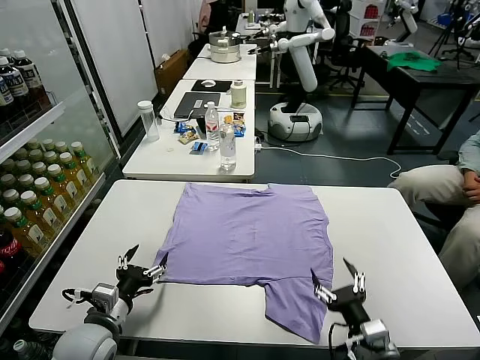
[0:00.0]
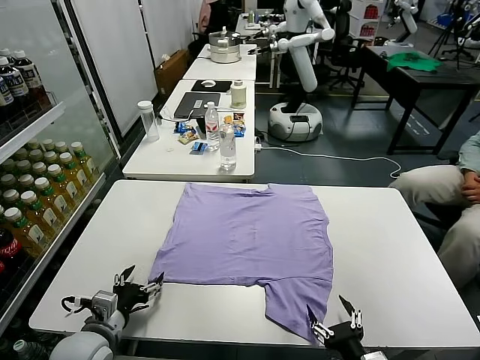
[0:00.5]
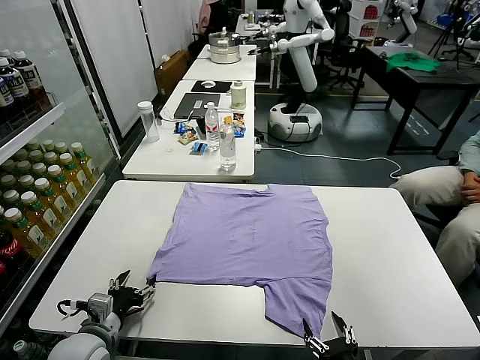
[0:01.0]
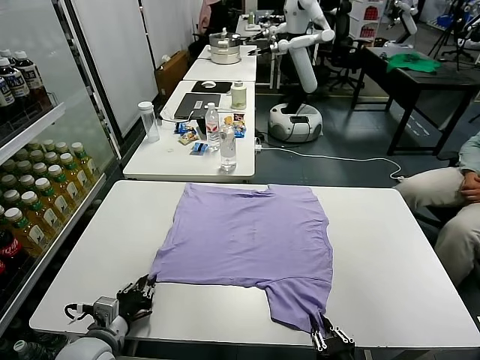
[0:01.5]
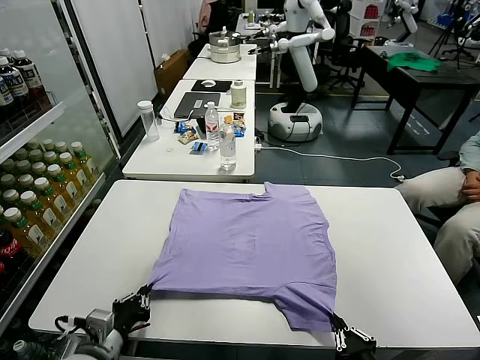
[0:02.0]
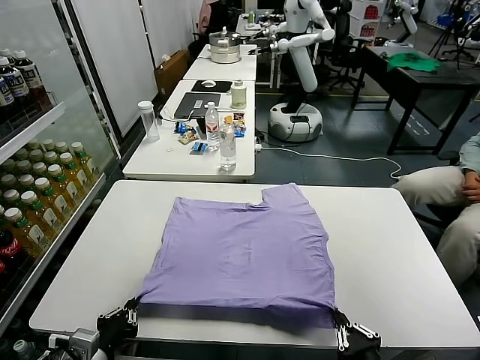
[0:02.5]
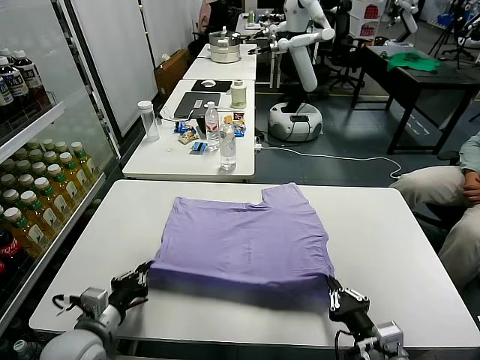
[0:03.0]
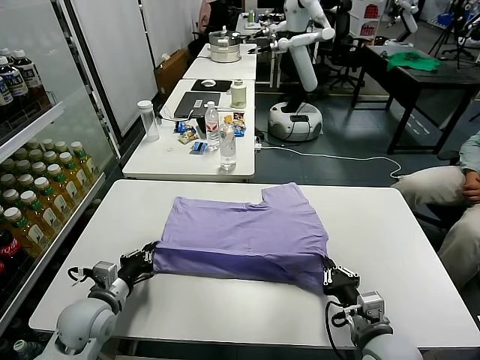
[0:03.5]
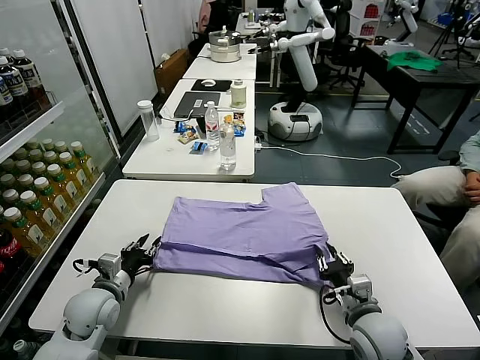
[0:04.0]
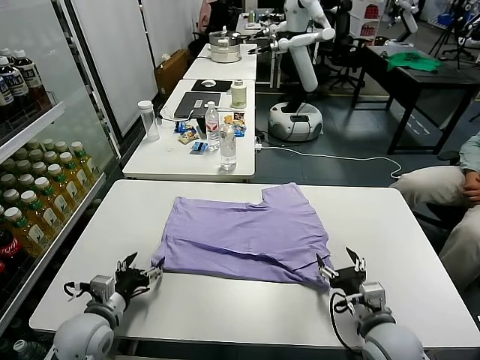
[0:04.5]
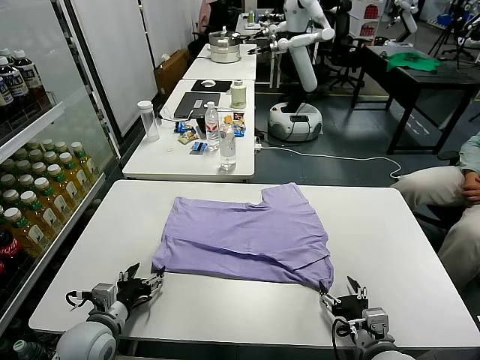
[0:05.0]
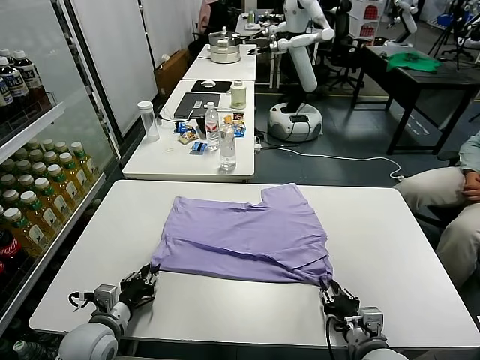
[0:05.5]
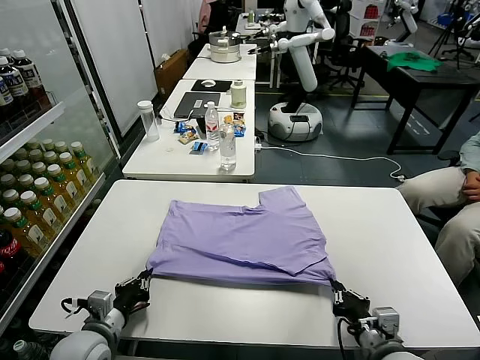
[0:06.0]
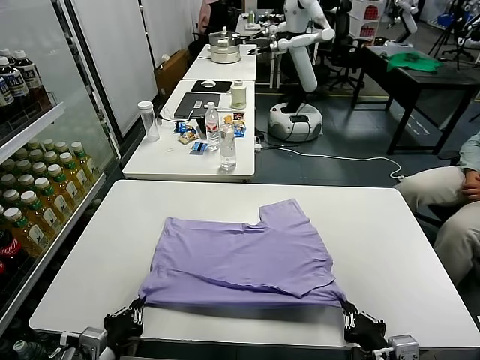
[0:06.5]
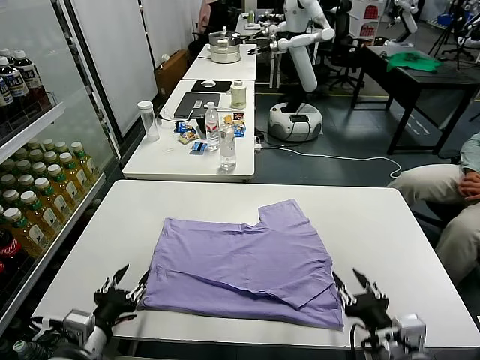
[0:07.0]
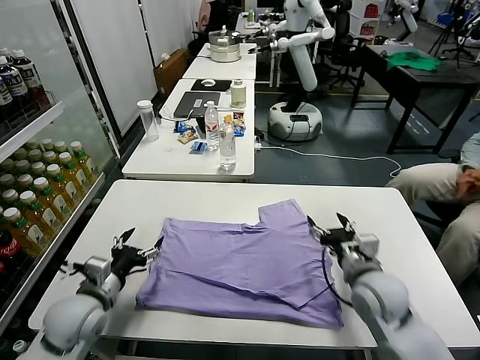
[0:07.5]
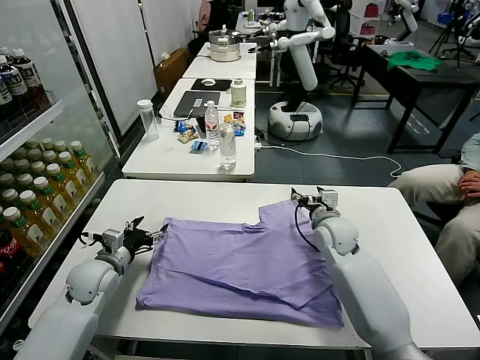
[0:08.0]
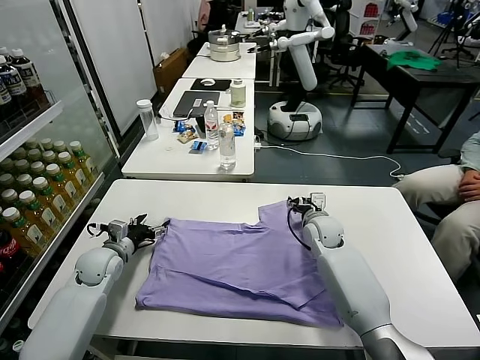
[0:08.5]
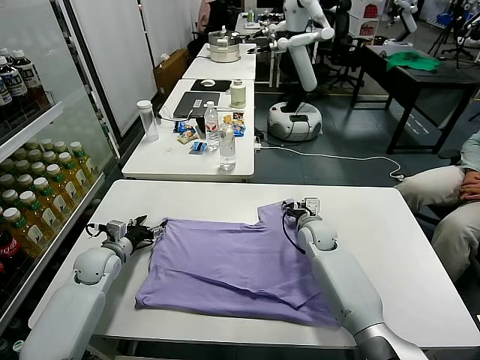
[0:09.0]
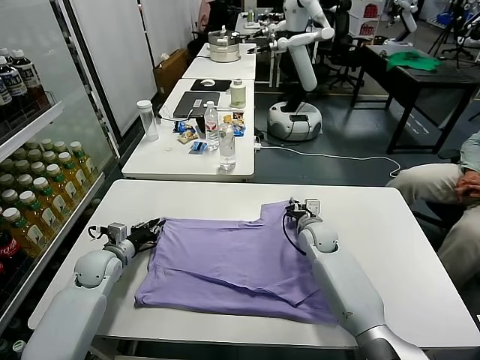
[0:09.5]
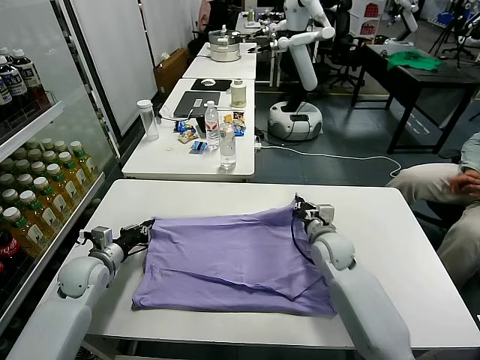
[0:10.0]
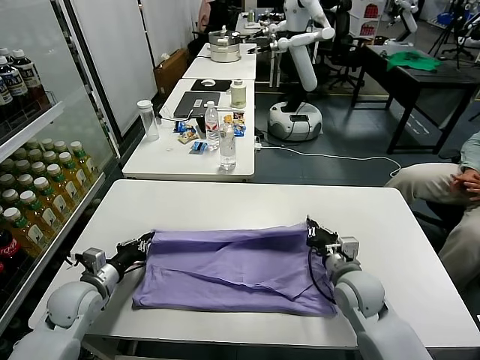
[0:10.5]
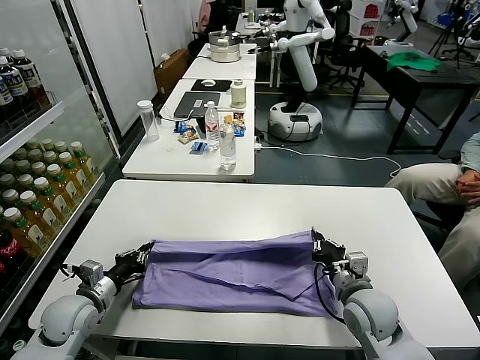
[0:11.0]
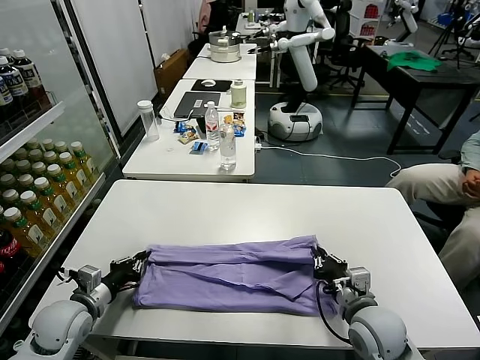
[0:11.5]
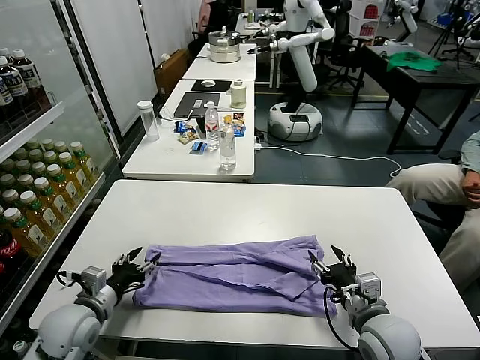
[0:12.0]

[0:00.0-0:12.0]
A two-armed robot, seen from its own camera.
Task of the whole recording: fold and organize the clothes.
Step, 0:00.0 to 0:01.5: use both grippers simultaneously to clamp the lower edge of the clothing fabric.
Step, 0:02.0 to 0:04.0: use both grippers to drag the lower edge of the fabric forward and fold it over the upper edge.
Step, 0:04.5 to 0:06.5: Drag the clothes downward with both gripper.
Step, 0:07.0 to 0:09.5: use both grippers simultaneously to clamp the upper edge of the clothing fabric.
Step, 0:10.0 to 0:11.5: use both grippers to drag the upper edge of the fabric backward and fold it over the lower edge.
0:02.0 to 0:04.0: The grippers both shift forward by roughly 15 cm. The left gripper opens its fingers, while the right gripper opens up.
0:04.0 to 0:06.0: Both grippers move backward, approximately 10 cm. The right gripper closes its fingers. Meanwhile the left gripper closes its fingers.
0:06.0 to 0:08.0: The left gripper goes approximately 15 cm forward, and opens its fingers. Meanwhile the right gripper goes roughly 35 cm forward, and opens.
0:08.0 to 0:10.0: The left gripper closes. The right gripper shifts about 5 cm backward, and closes up.
0:10.0 to 0:12.0: The left gripper shifts roughly 10 cm backward, and opens up. Meanwhile the right gripper travels backward by approximately 20 cm, and opens up.

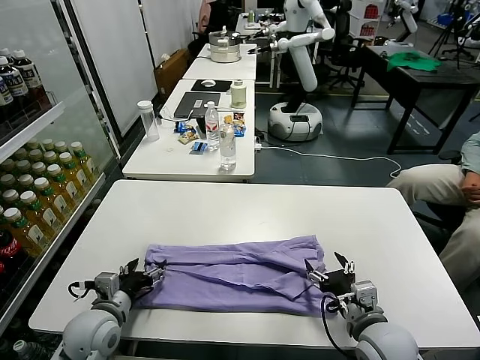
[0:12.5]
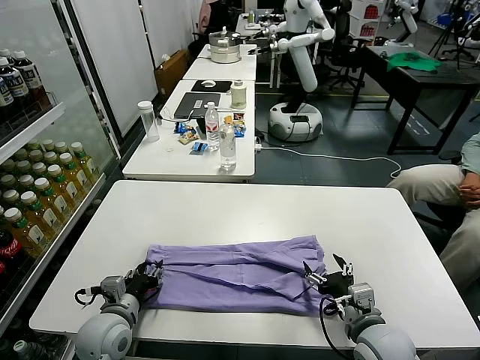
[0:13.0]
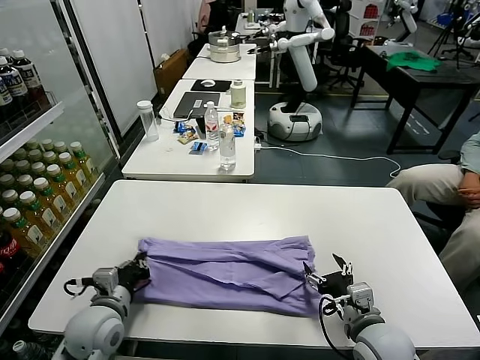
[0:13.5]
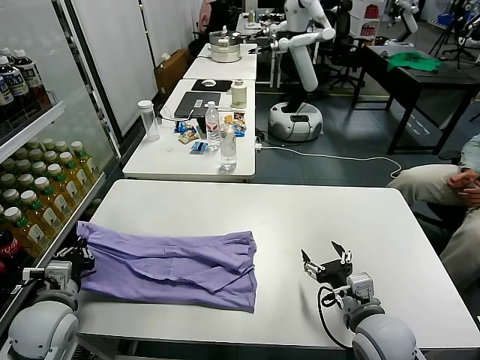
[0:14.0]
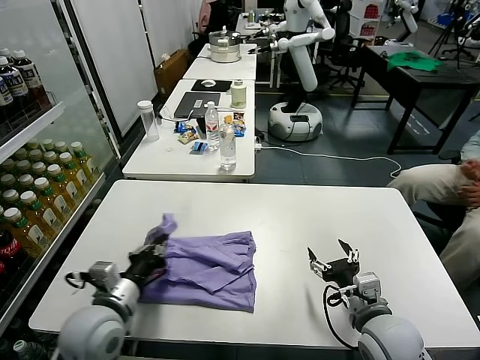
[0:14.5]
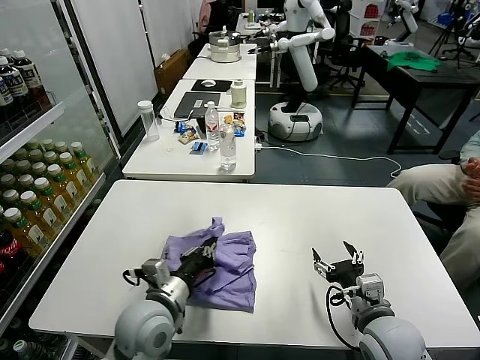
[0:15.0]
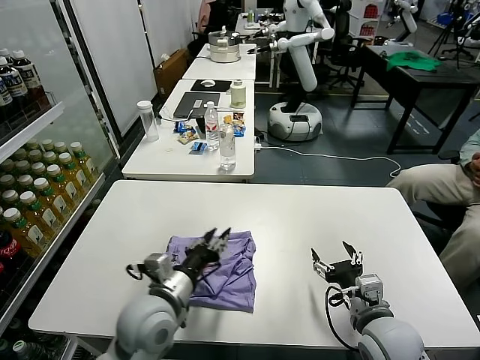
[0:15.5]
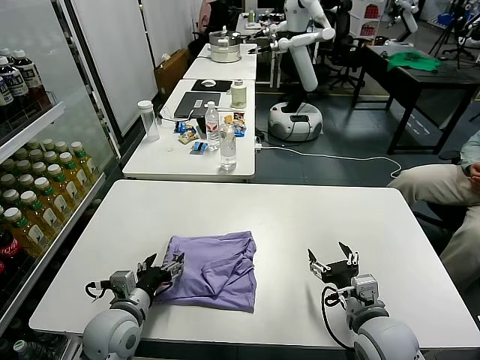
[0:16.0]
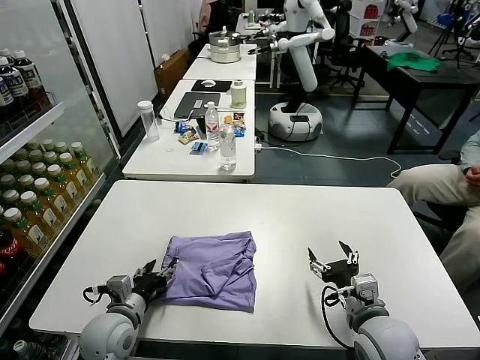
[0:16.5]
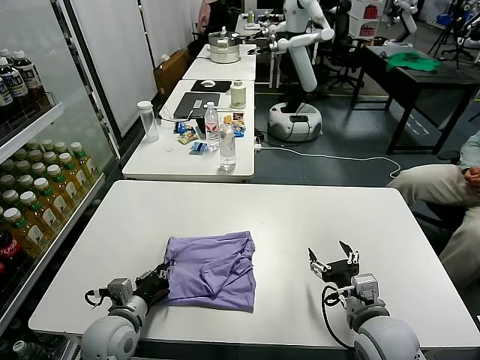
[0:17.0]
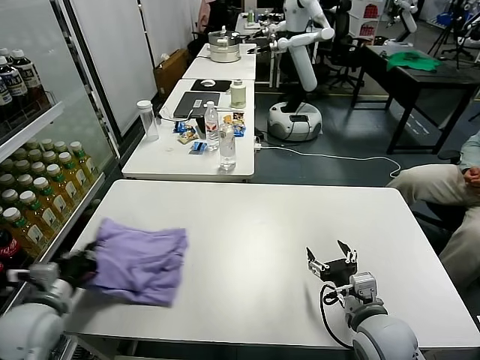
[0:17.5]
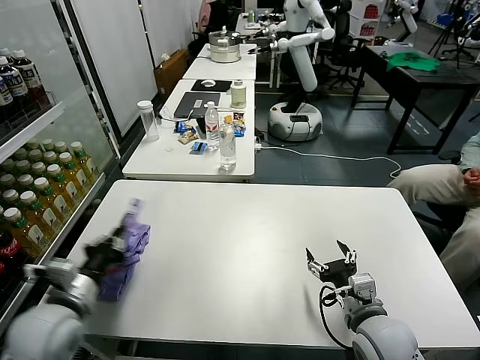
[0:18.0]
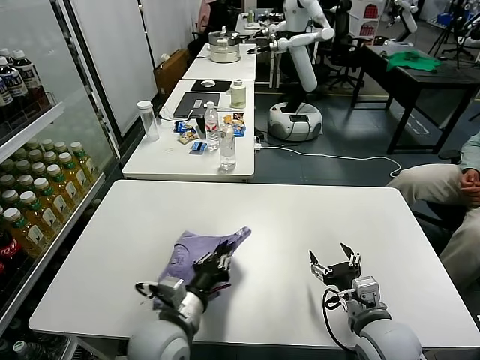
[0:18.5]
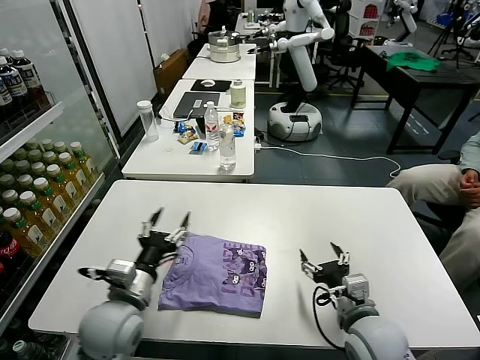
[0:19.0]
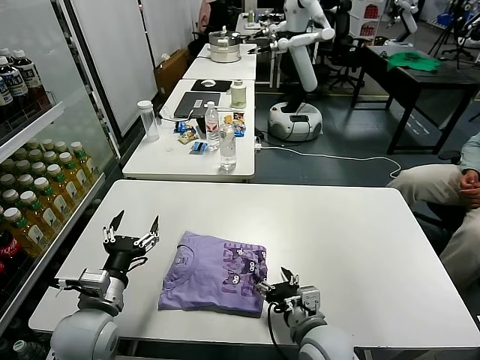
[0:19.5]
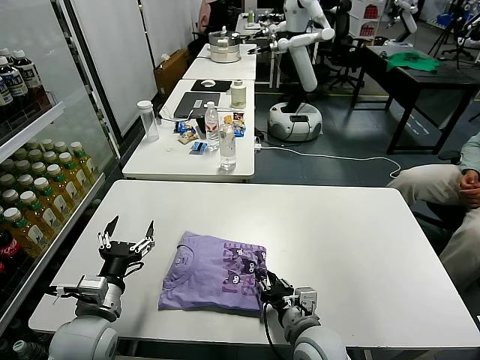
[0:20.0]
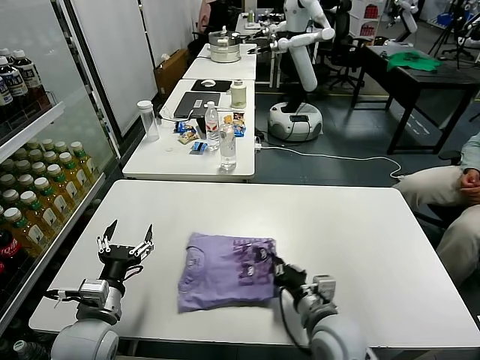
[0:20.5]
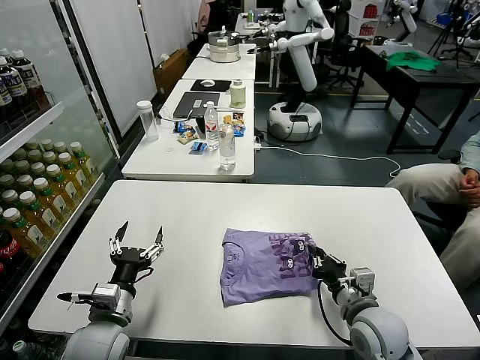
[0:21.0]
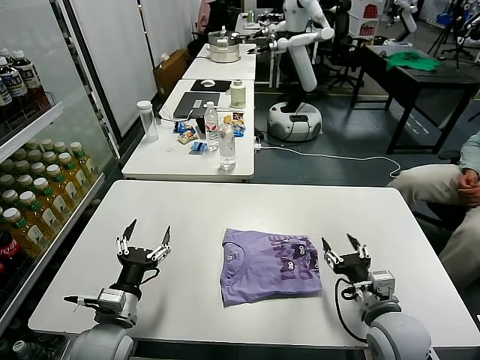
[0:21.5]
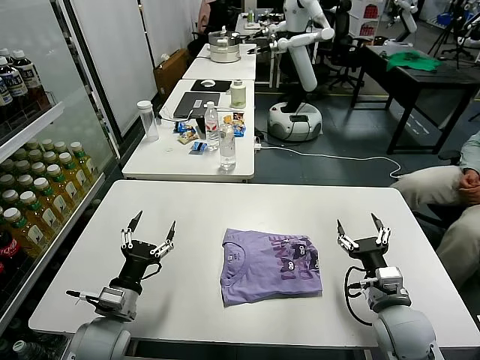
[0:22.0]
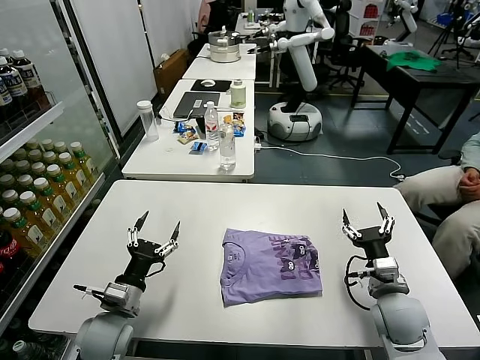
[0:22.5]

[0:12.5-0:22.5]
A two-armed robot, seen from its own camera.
Task of the whole recording: fold and organize the clothes.
Step, 0:13.5 to 0:15.0: use the left gripper to drag the left edge of the fabric to the left and folds it over the right edge.
Step, 0:15.5 to 0:18.5: Flip the folded clothes over with left gripper.
Step, 0:19.0 to 0:21.5: Drag the clothes to the center of the table.
0:12.5 to 0:14.5: The left gripper shifts some 10 cm upward, and closes up.
0:14.5 to 0:16.5: The left gripper heads downward, covering approximately 10 cm, moves some 10 cm to the right and comes back, and opens up.
0:16.5 to 0:18.5: The left gripper is displaced to the right and upward by some 15 cm, and closes.
0:18.5 to 0:20.5: The right gripper goes about 10 cm to the left, and closes. The left gripper heads to the left, covering approximately 15 cm, and opens up.
0:20.5 to 0:22.5: The left gripper moves roughly 5 cm, while the right gripper shifts roughly 15 cm to the right, and opens.
